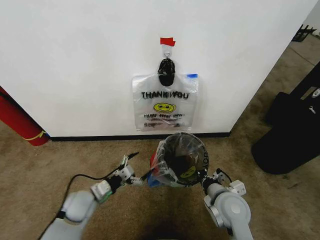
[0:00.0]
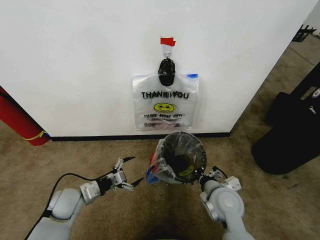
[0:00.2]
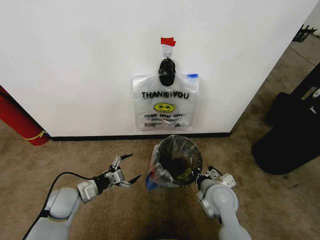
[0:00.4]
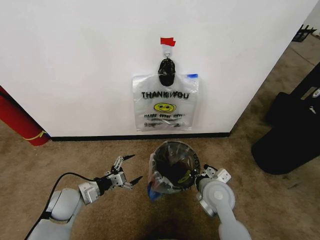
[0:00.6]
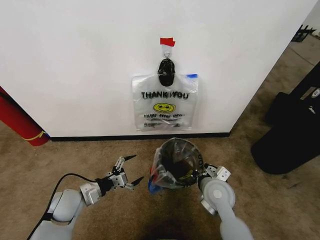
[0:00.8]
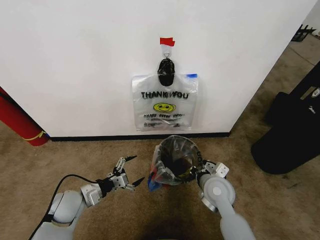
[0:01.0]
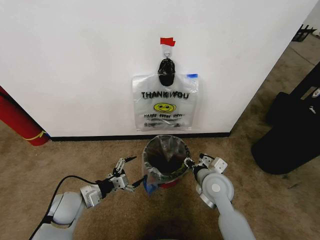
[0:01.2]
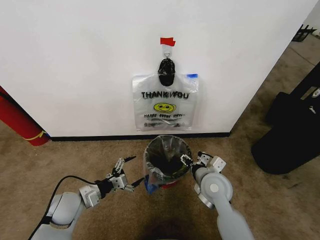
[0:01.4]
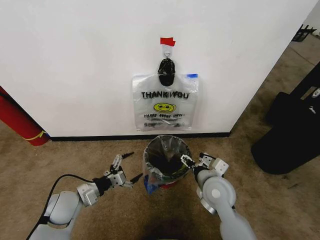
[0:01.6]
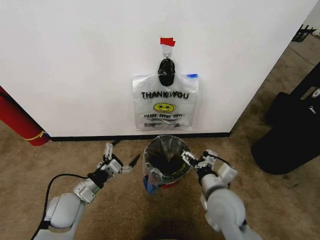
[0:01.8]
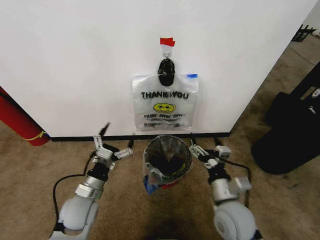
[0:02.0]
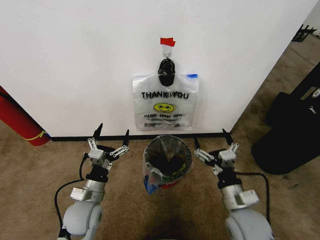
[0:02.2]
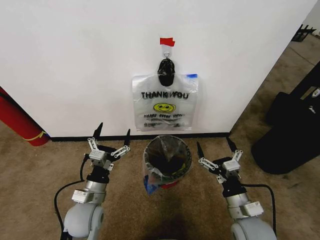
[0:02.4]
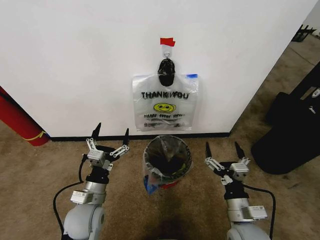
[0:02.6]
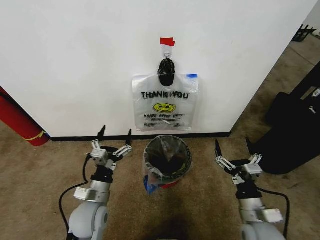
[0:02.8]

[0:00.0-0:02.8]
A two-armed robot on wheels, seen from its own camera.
Task of the whole recording: Pick up the garbage bag from the wall and place it over the trash bin.
0:00.0 to 0:01.4: The right gripper goes approximately 5 cm forward, and opens its fingers.
0:01.4 to 0:02.8: The left gripper goes roughly 10 cm to the right. Meanwhile the right gripper travels backward and to the right by roughly 15 cm.
